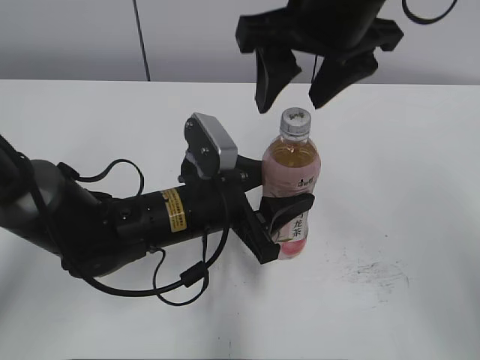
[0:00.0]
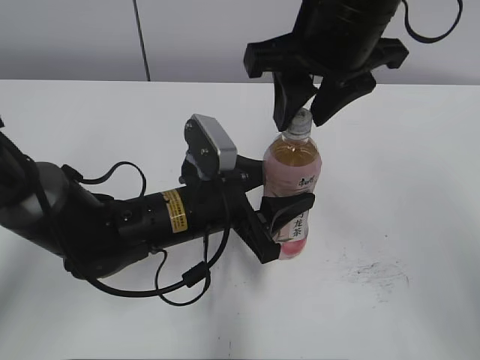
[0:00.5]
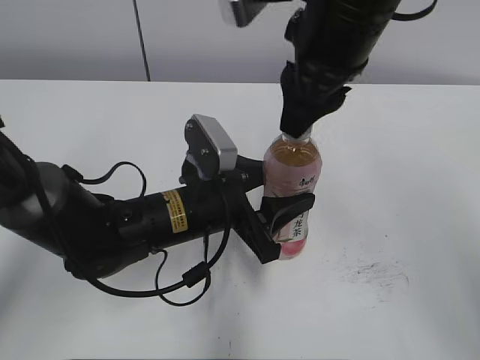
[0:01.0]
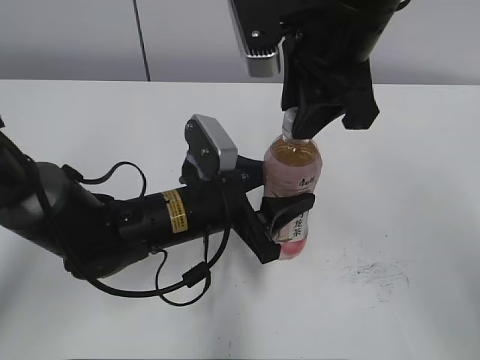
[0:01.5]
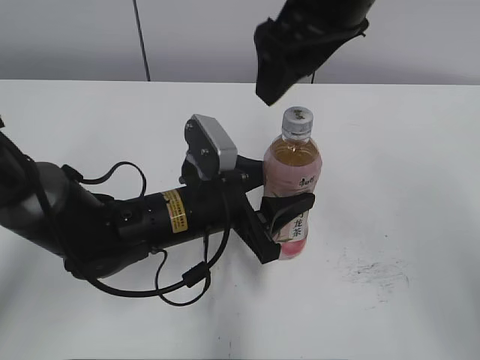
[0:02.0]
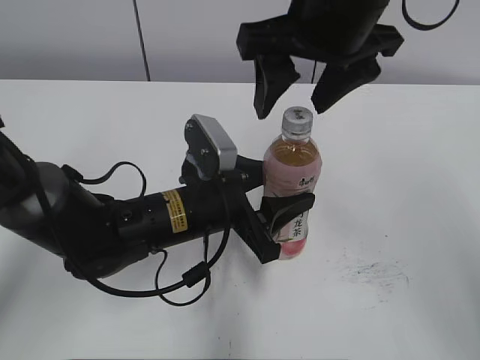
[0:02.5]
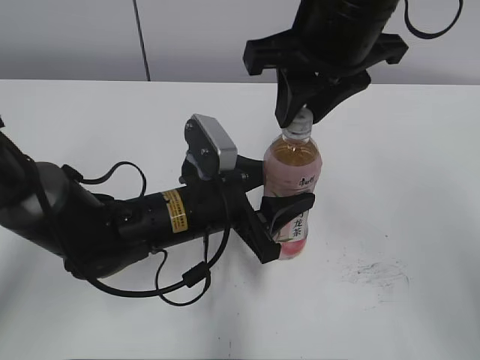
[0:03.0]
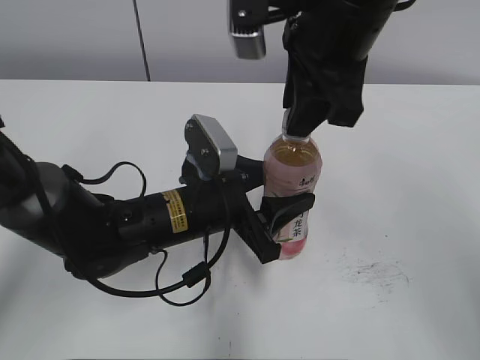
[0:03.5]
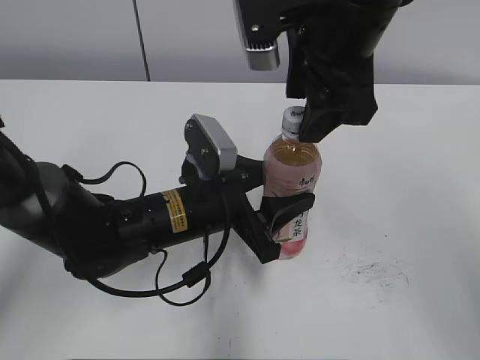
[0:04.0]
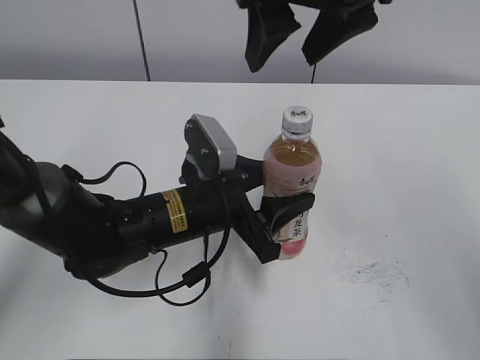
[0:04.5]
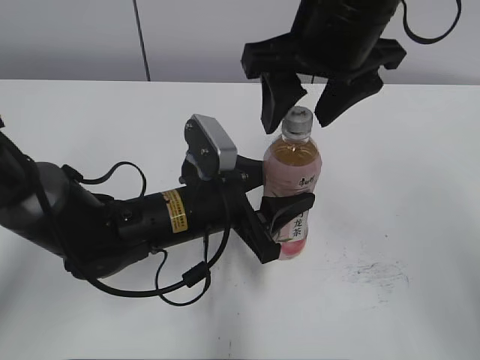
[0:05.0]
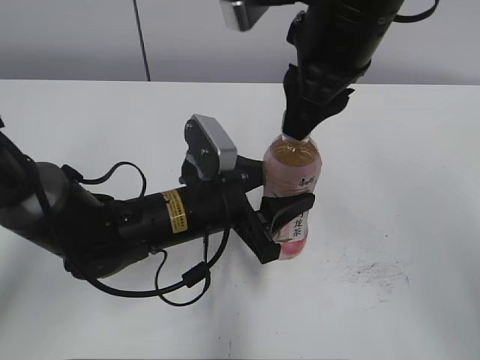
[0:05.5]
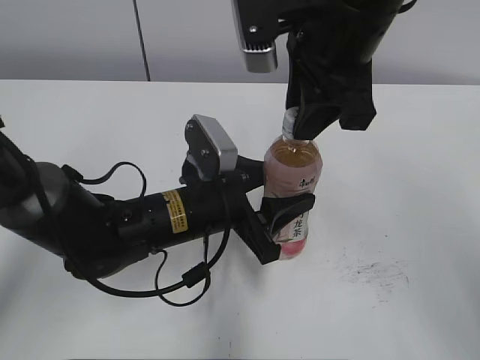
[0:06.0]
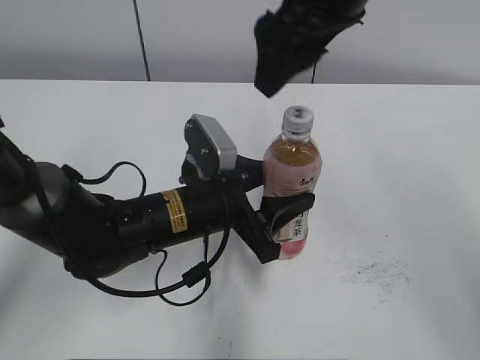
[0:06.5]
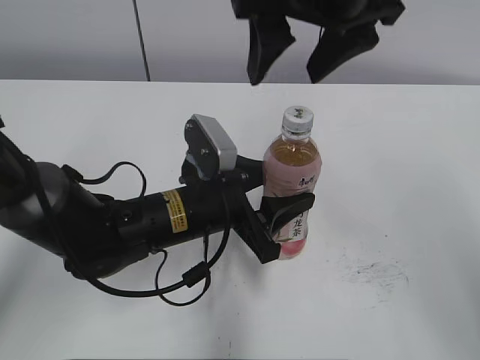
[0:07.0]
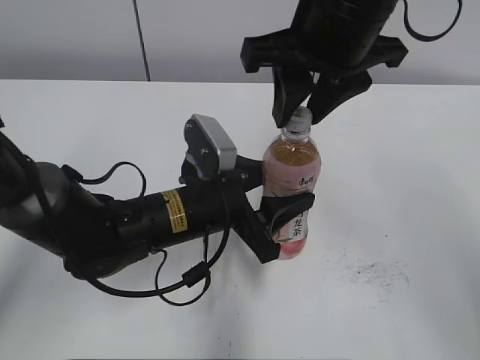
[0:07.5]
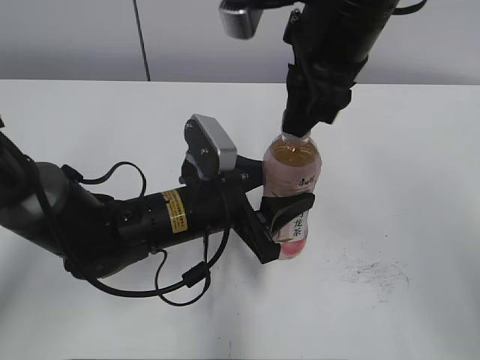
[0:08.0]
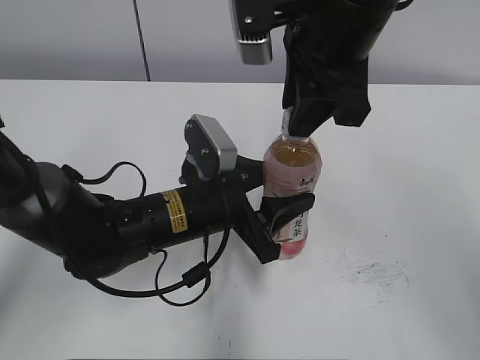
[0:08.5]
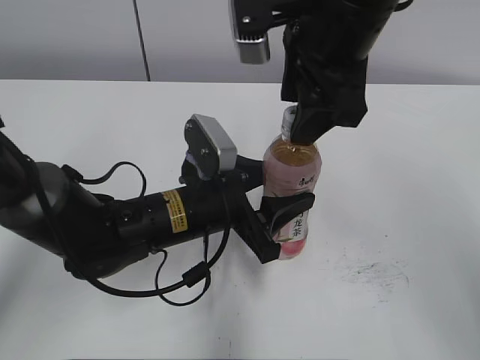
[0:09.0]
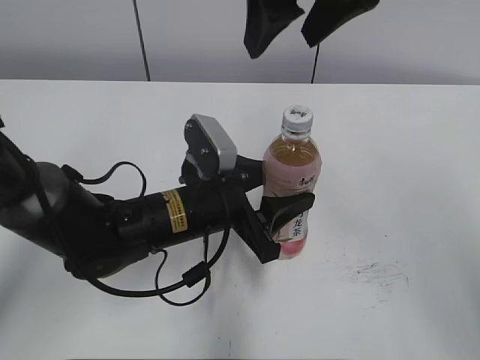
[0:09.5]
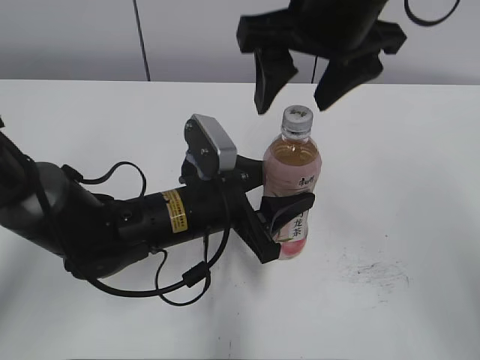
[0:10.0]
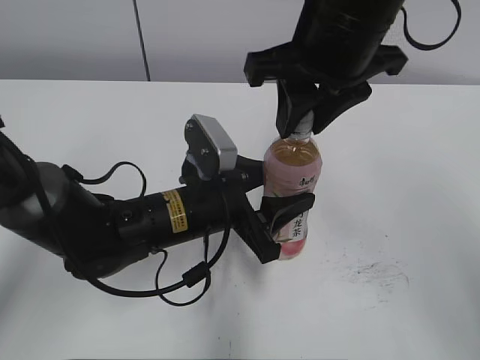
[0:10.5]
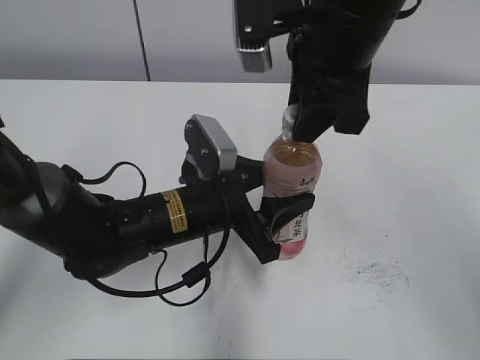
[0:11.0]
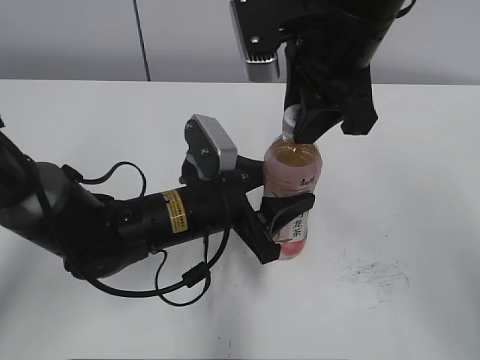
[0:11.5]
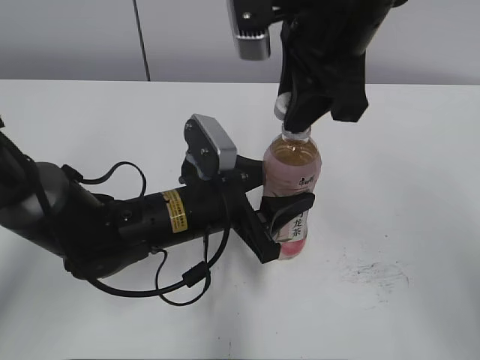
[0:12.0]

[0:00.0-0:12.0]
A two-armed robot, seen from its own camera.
0:00.0 to 0:02.0: The right gripper closes and opens again.
0:02.0 to 0:04.0: The right gripper closes, then reopens.
0:04.0 to 0:06.0: The right gripper closes its fingers.
0:06.0 to 0:08.0: The right gripper opens, then closes once more.
0:08.0 to 0:10.0: The right gripper opens its fingers.
0:10.0 to 0:12.0: The right gripper closes up.

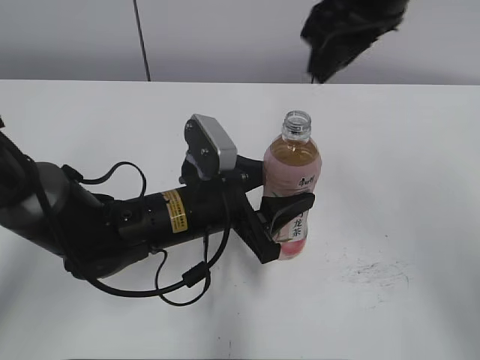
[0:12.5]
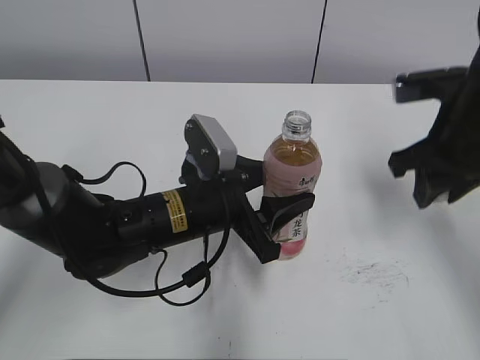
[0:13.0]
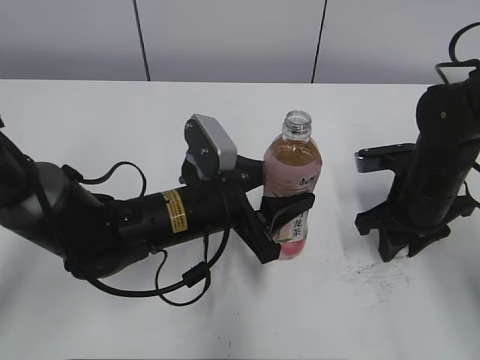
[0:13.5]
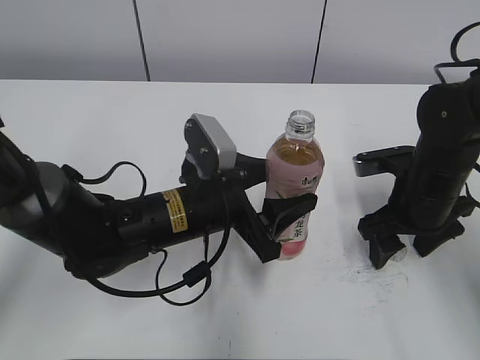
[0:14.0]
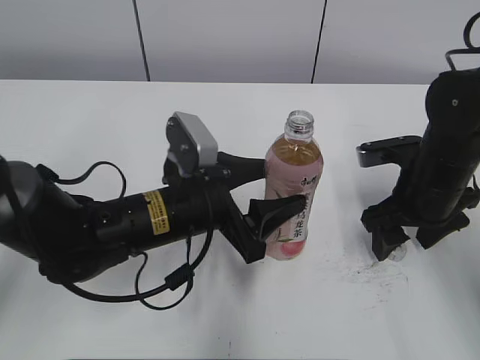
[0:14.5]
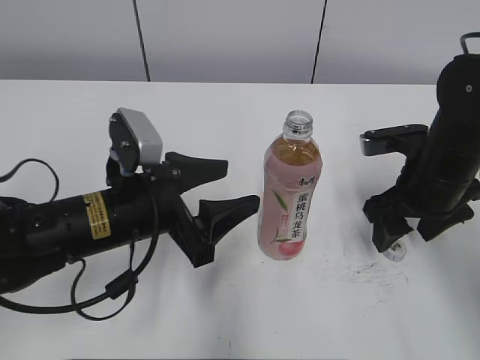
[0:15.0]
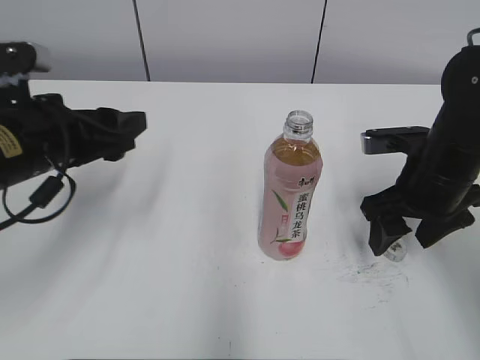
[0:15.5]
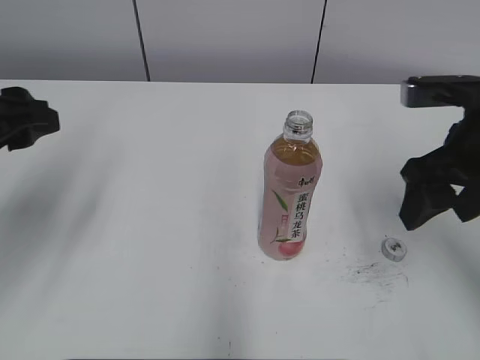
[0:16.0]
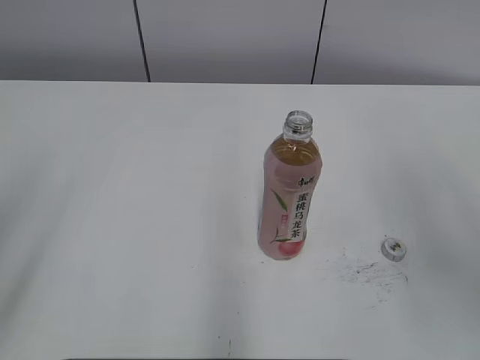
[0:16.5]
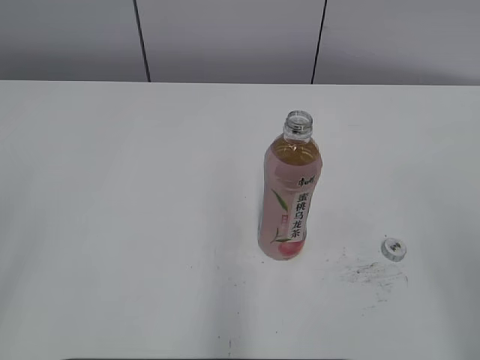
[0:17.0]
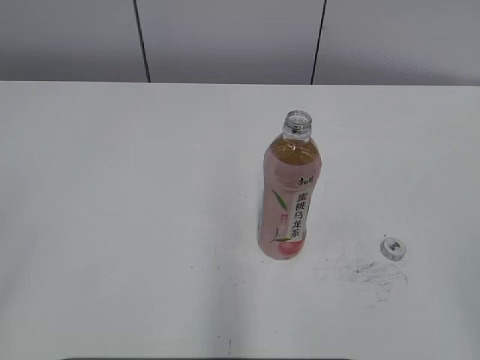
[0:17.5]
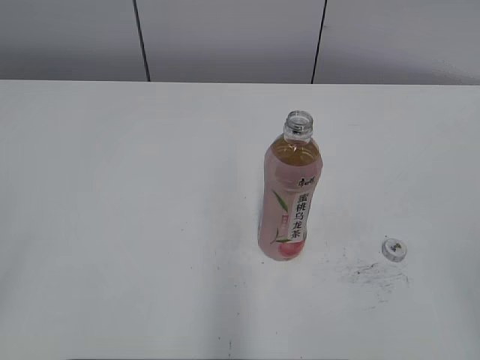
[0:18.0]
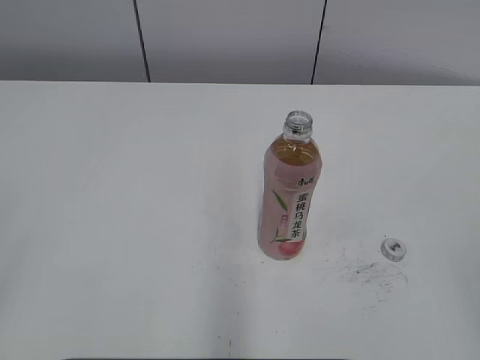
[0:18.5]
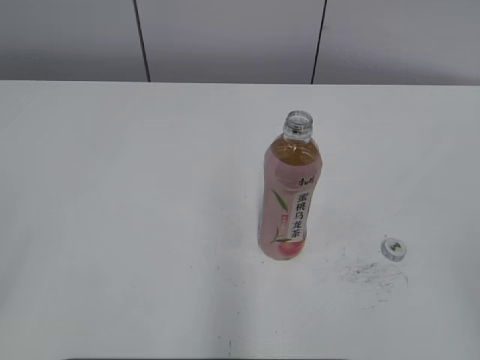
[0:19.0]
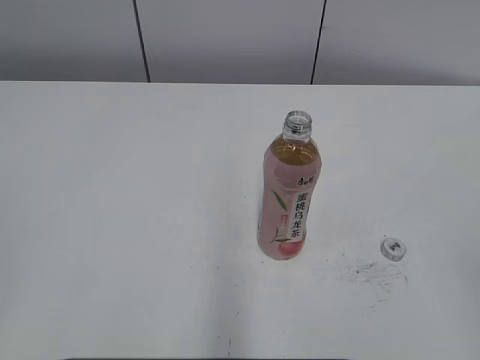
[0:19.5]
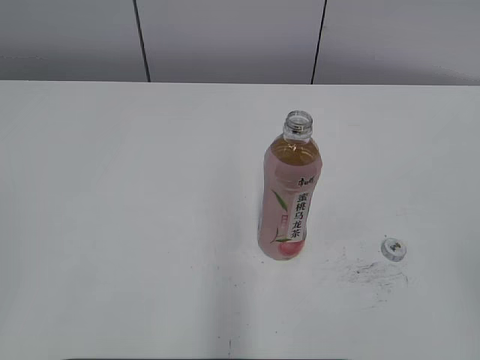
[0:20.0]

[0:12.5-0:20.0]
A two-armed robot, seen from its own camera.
Step, 0:12.5 to 0:13.5: Place the bottle cap on the right.
0:12.5 to 0:14.5: The right gripper is displaced downward and to the right by roughly 25 cm, and opens its fingers.
0:14.5 to 0:16.5: The right gripper moves upward and backward, about 25 cm; the left gripper heads to the left, upward and backward, covering approximately 35 cm.
0:16.5 to 0:18.0: The right gripper is displaced backward by some 15 cm.
